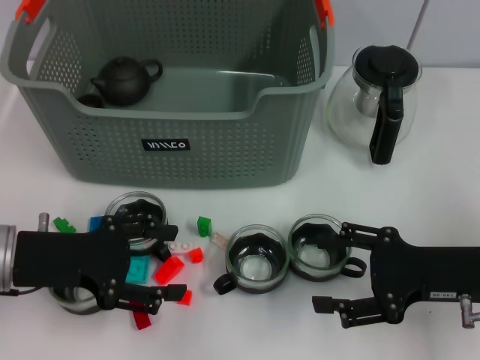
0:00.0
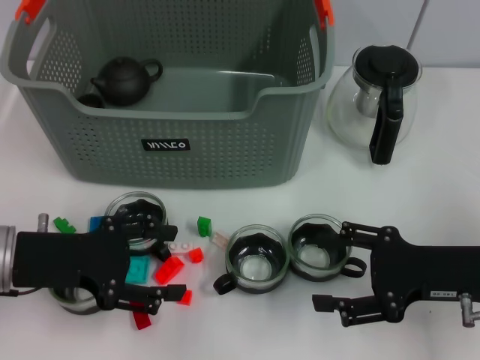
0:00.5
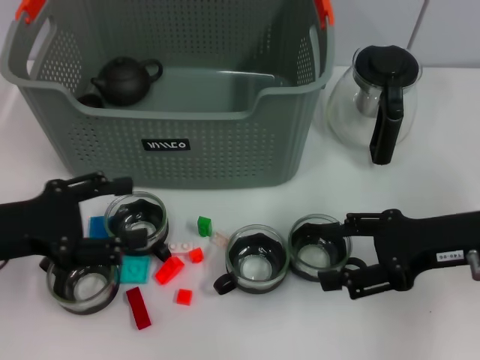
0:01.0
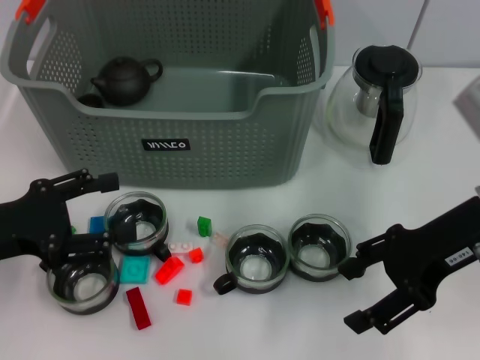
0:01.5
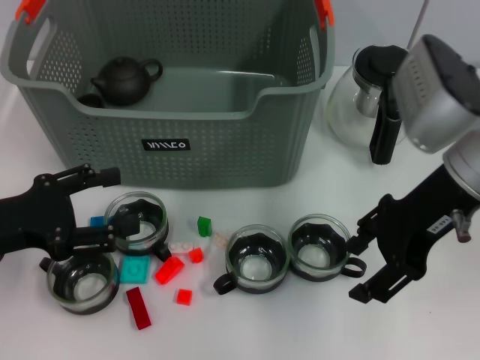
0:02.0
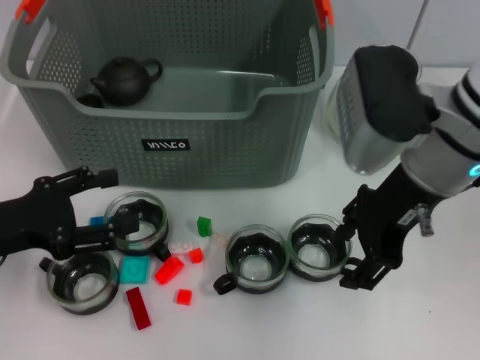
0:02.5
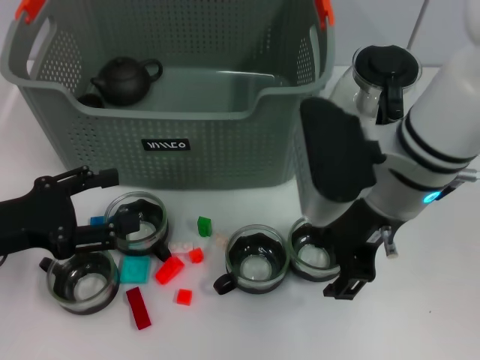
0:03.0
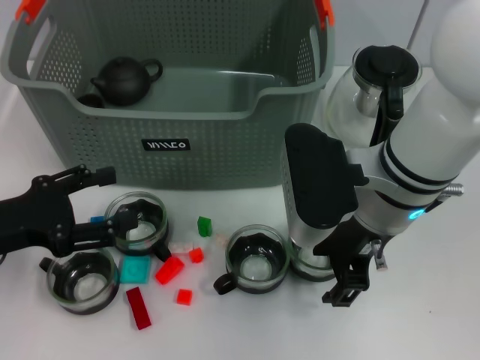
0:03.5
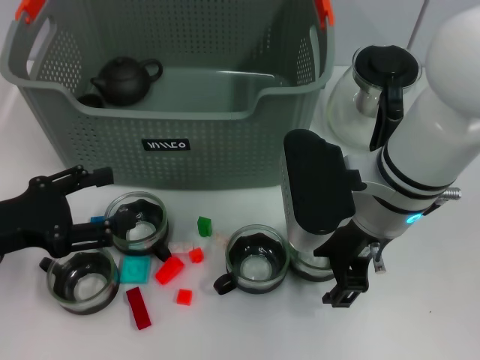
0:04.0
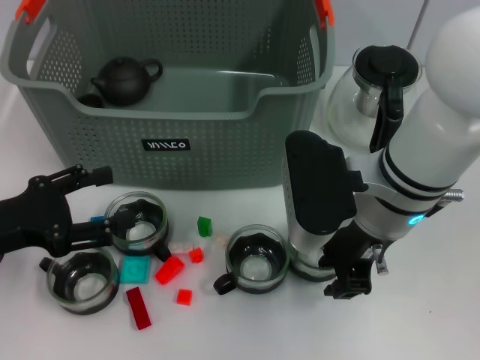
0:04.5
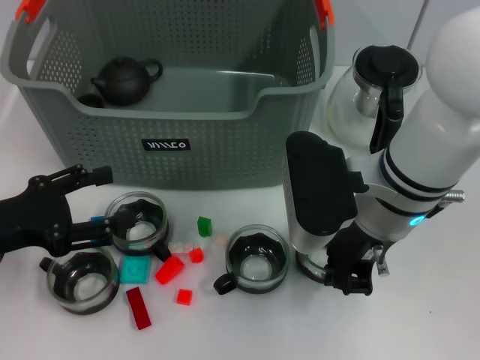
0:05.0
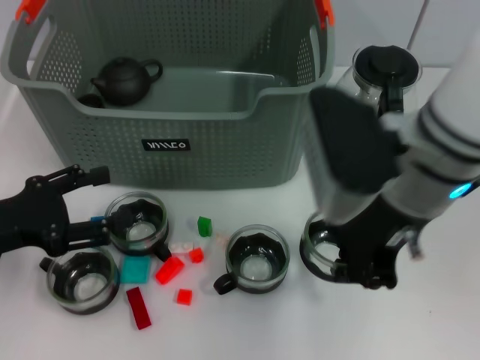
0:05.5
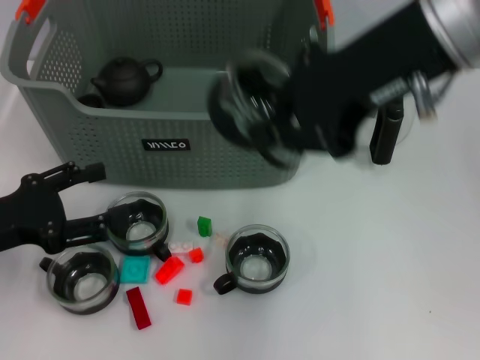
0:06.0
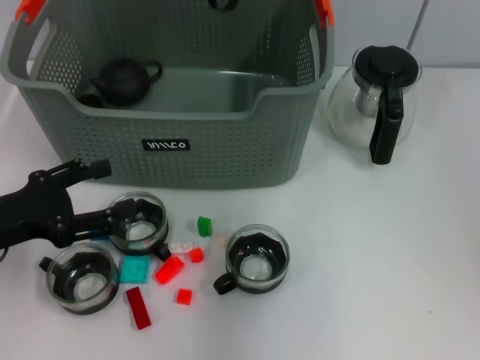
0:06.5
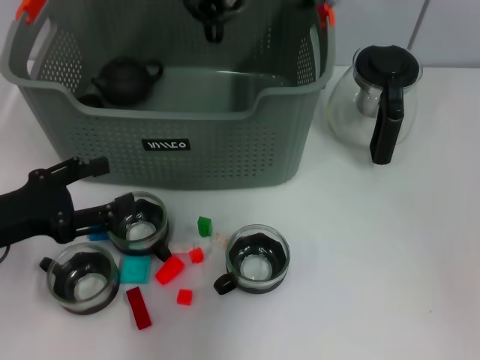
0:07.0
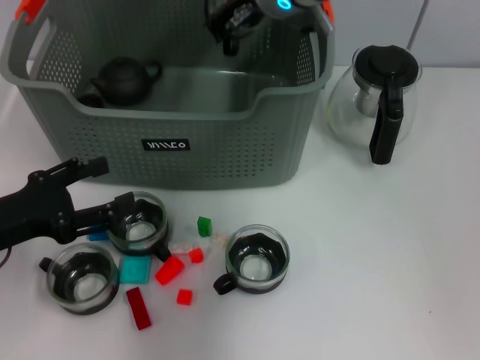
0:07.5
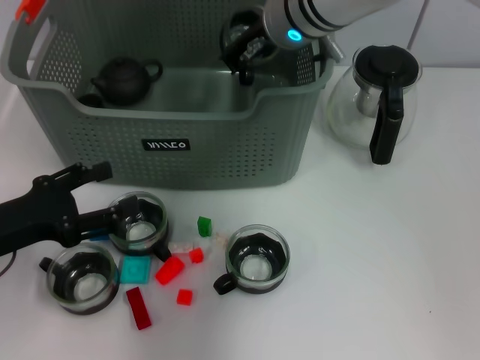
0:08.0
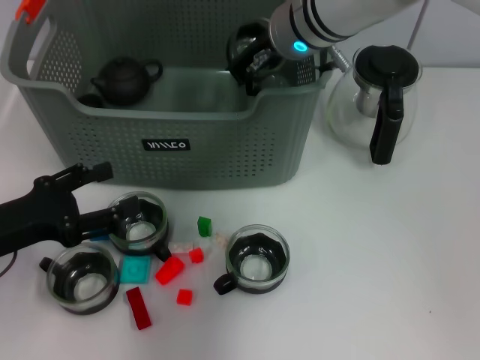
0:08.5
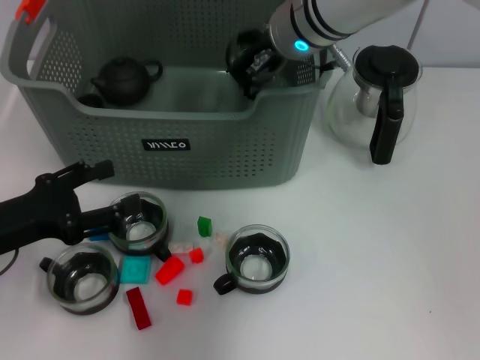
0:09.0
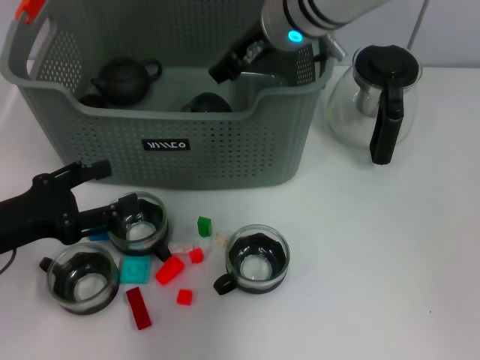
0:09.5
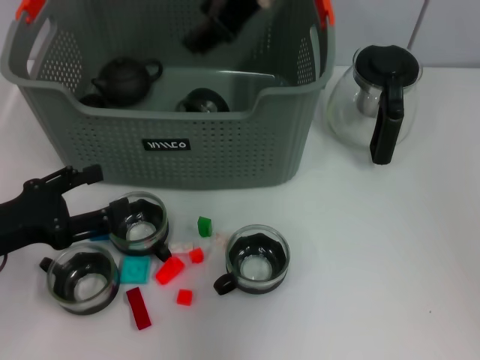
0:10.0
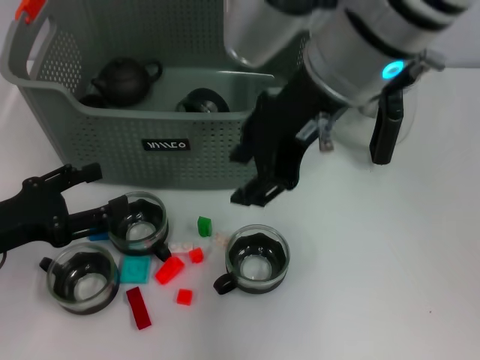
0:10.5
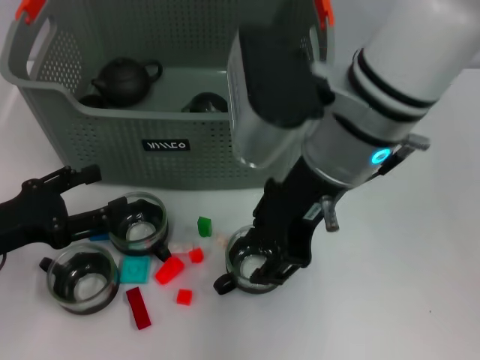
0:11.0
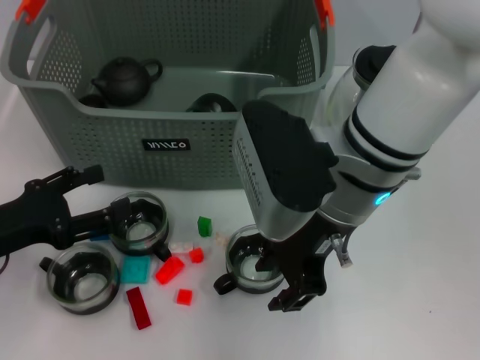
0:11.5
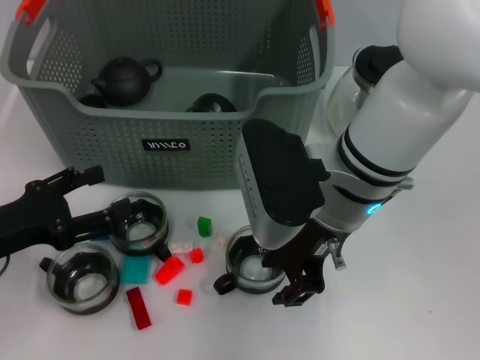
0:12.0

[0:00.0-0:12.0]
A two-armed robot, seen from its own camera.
Task of the whole recording: pick up the teacup on the table and place it into the storage bin, pick up the block on the table and place it into the storage bin.
Step, 0:00.0 to 0:05.0: Grasp the cup with right gripper.
Step, 0:06.0 to 0:09.5: Place the cup in the storage box with right gripper.
0:00.0 to 0:02.0: The right gripper shifts some 15 cm upward, to the left and forward.
0:02.0 to 0:04.0: The right gripper travels to the left by roughly 10 cm.
0:04.0 to 0:06.0: The right gripper is displaced upward by roughly 20 cm, and closes up.
0:06.0 to 0:08.0: The right gripper heads forward, downward and to the left, covering approximately 20 cm.
0:08.0 to 0:10.0: The right gripper goes approximately 10 cm upward and backward, and opens its fingers.
0:10.0 to 0:12.0: The right gripper heads downward and backward, covering some 20 cm.

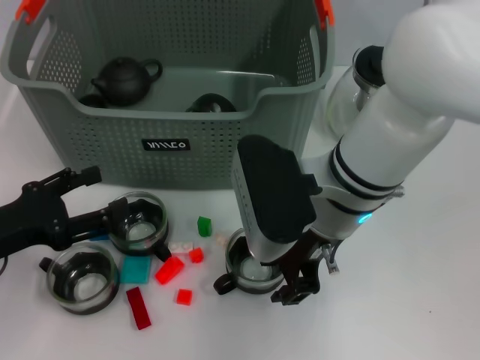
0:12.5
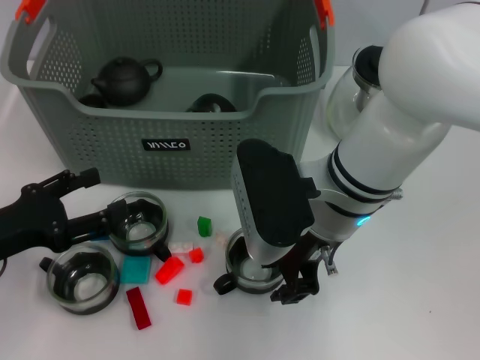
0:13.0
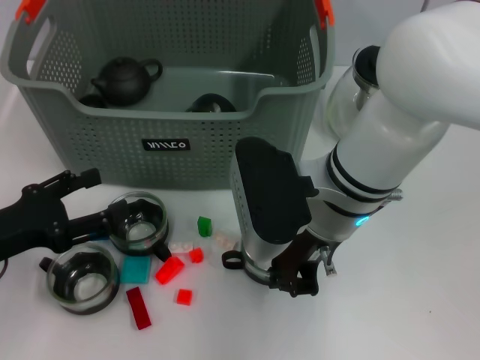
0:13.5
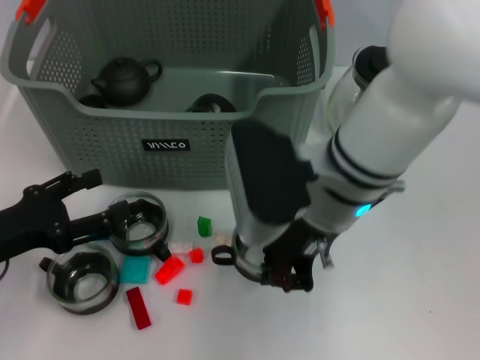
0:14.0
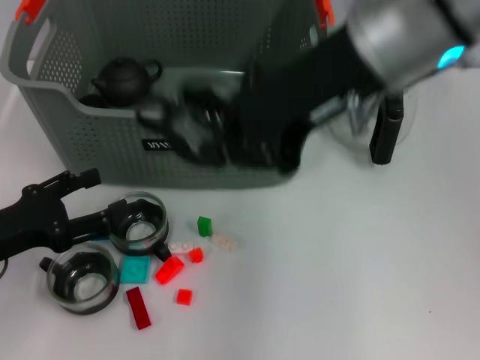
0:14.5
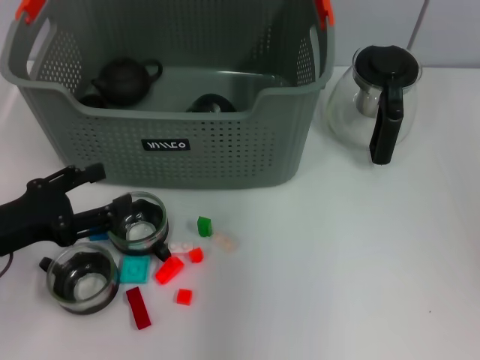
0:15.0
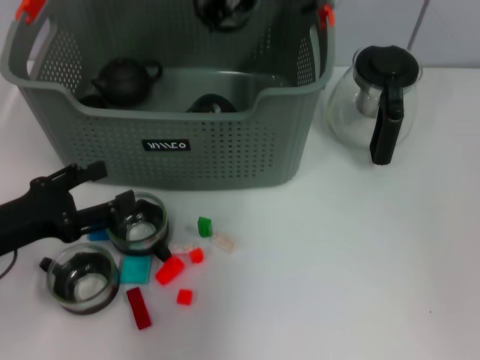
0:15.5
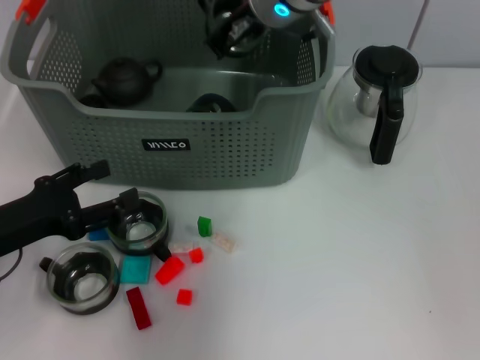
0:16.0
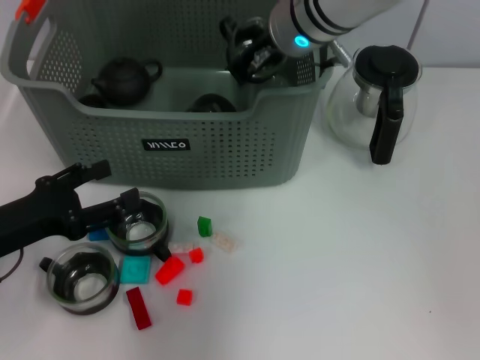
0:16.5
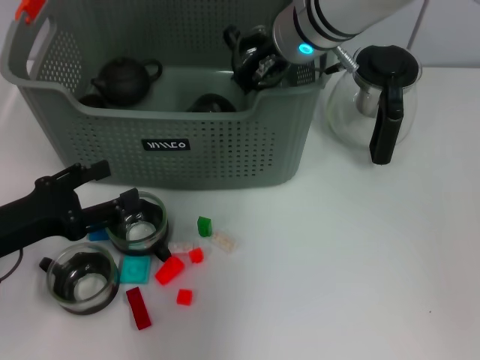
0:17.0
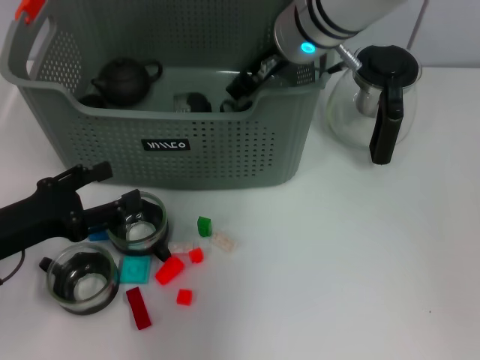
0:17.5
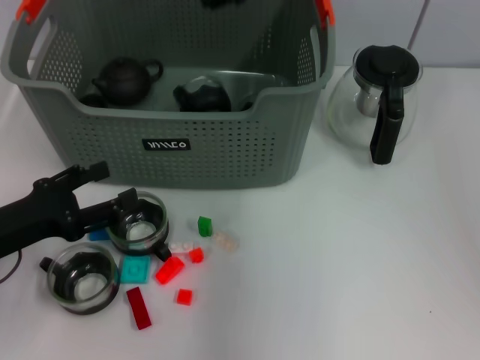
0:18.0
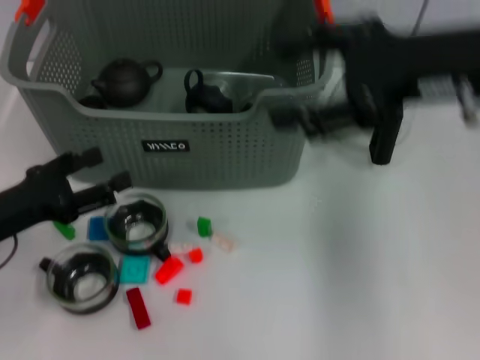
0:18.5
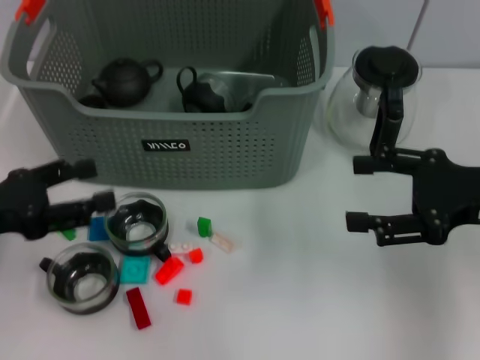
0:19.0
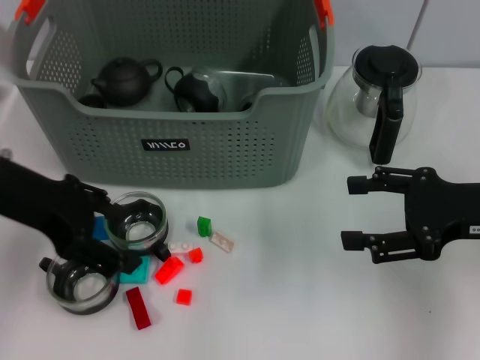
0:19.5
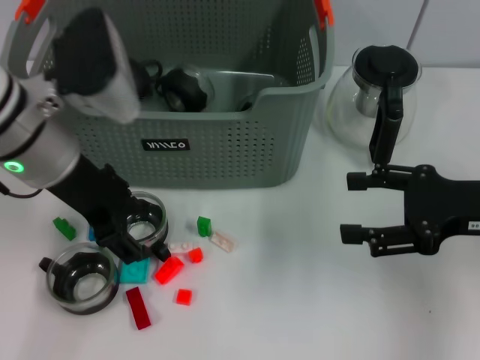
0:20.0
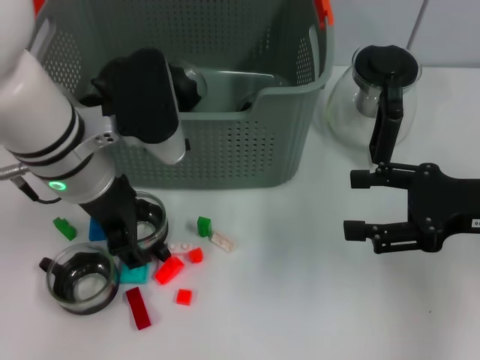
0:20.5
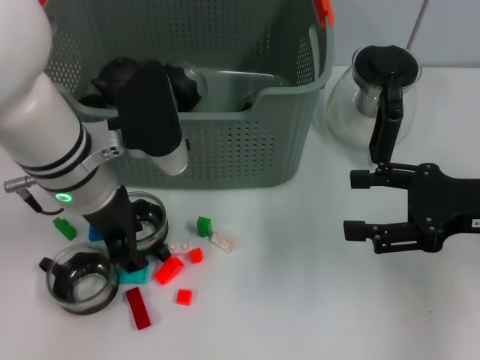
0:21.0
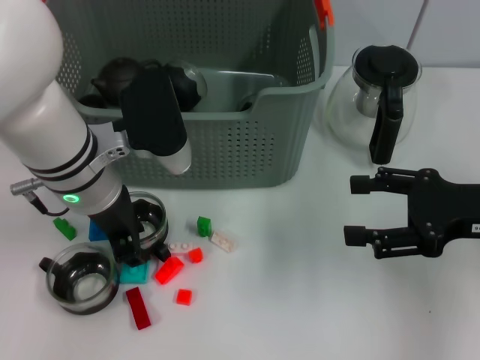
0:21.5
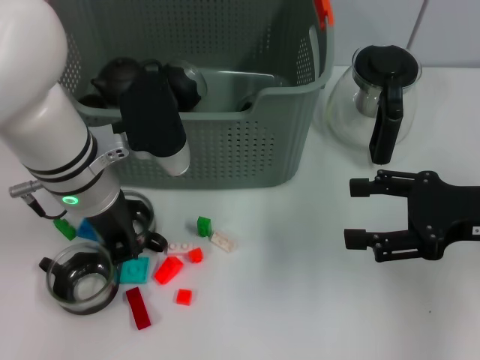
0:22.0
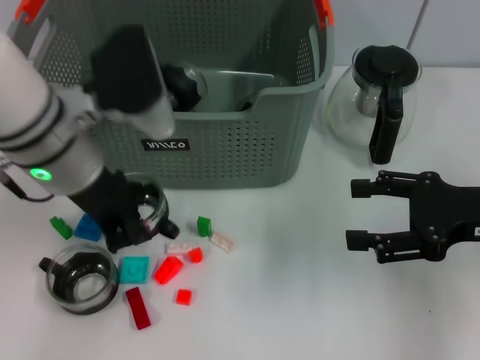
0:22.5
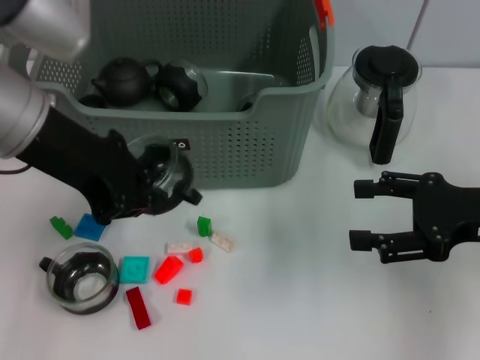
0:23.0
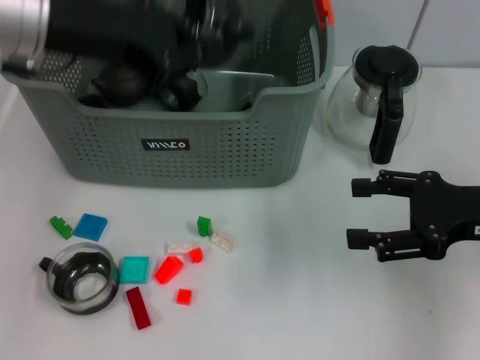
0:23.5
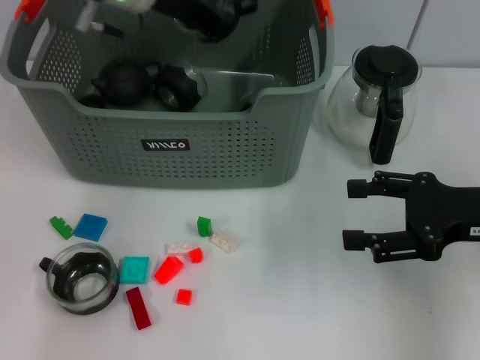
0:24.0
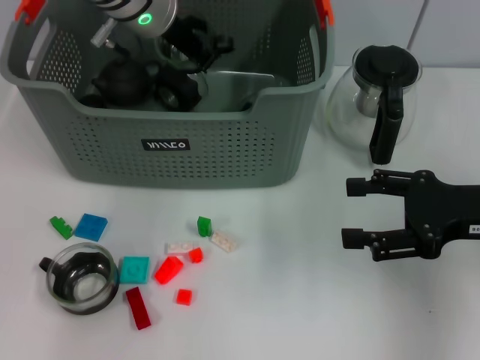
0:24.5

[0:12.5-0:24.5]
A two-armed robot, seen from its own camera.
Task of the whole recording: pick up the teacup on the table and place it into the storage bin, pick up the block on the table and place it into the storage bin.
Step, 0:14.5 to 0:17.5: Place the cup in the storage box with right gripper.
Step, 0:18.0 to 0:22.5: Grasp the cup with left gripper.
0:12.5 to 0:14.5: The right gripper moves upward, approximately 15 cm, and closes up.
0:14.5 to 0:16.5: The right gripper goes about 20 cm forward, downward and to the left.
0:16.5 to 0:18.5: The right gripper is displaced to the right and backward by about 20 cm, and opens up.
0:18.5 to 0:20.5: The right gripper heads downward and to the right, covering some 10 cm. Meanwhile the left gripper shifts approximately 20 cm to the right, upward and forward.
0:20.5 to 0:22.5: The left gripper closes.
0:22.5 to 0:24.5: The left gripper heads forward, covering some 15 cm.

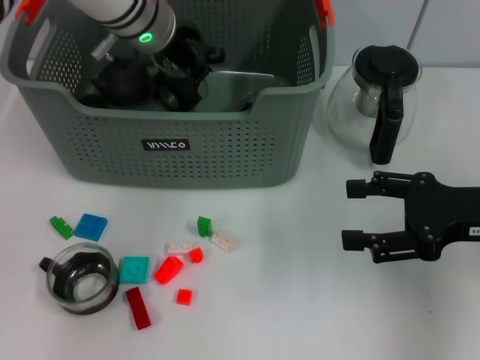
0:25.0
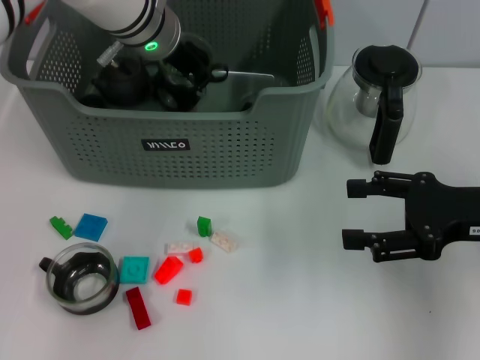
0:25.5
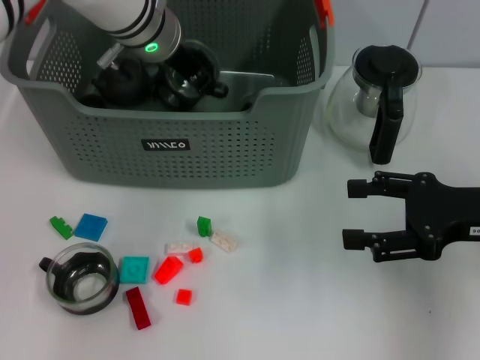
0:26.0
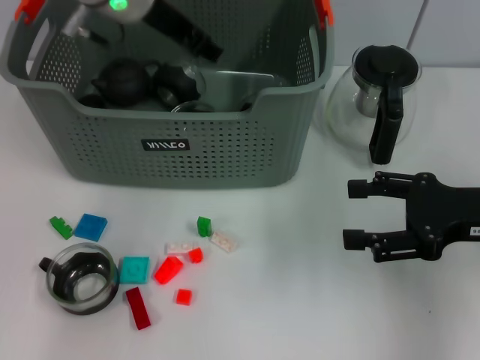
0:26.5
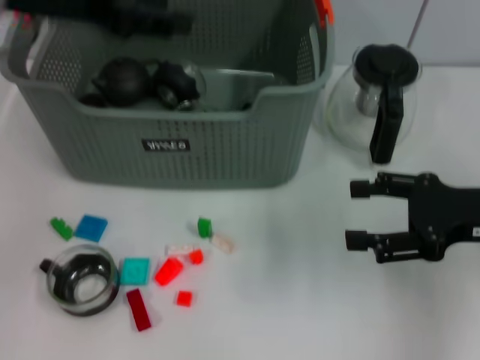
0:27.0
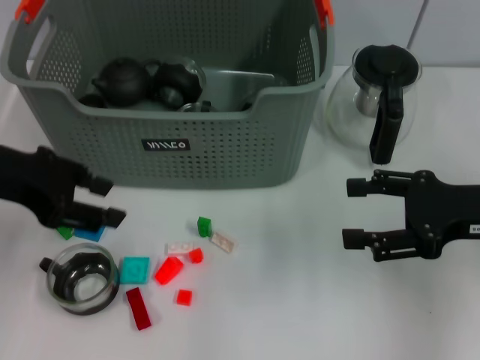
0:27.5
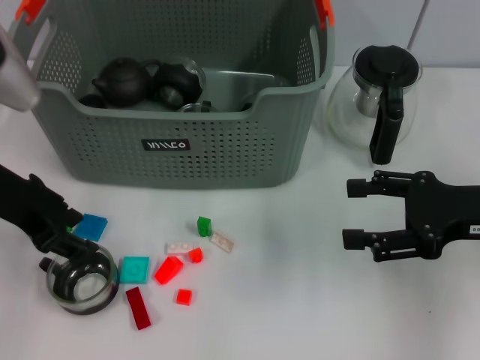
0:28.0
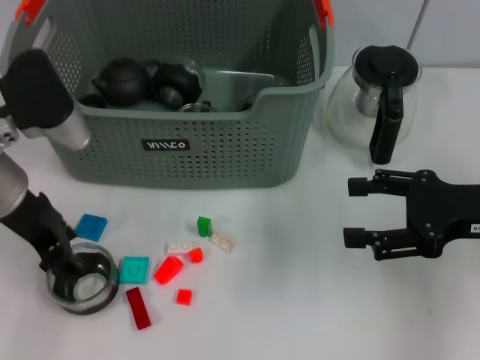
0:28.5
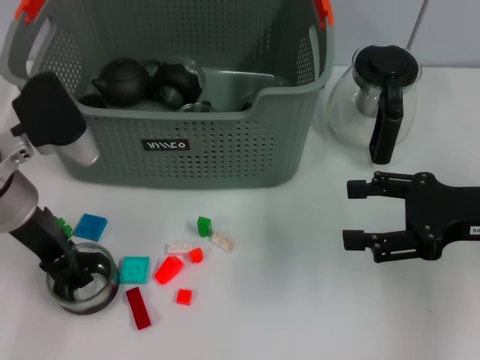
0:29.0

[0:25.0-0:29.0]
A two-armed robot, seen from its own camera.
Task of the whole recording: pick up the teacup on the table and place it into the storage bin, pick up the block on the table and place it into the storage bin.
0:25.0 to 0:27.0: The left gripper heads to the left, backward and upward, covering some 20 cm, and opens up.
0:27.0 to 0:29.0: The left gripper moves downward, approximately 15 cm.
